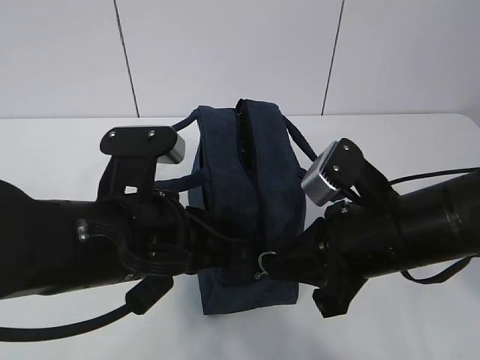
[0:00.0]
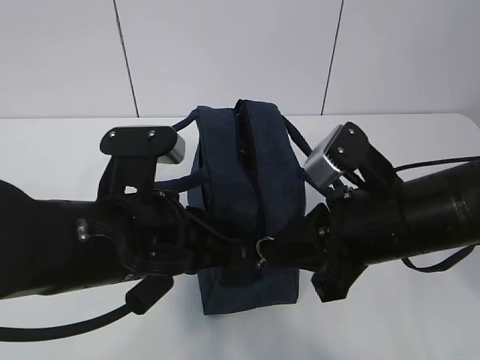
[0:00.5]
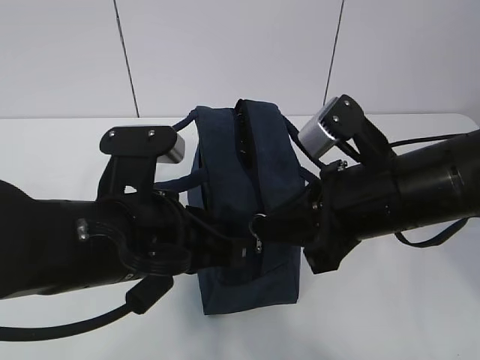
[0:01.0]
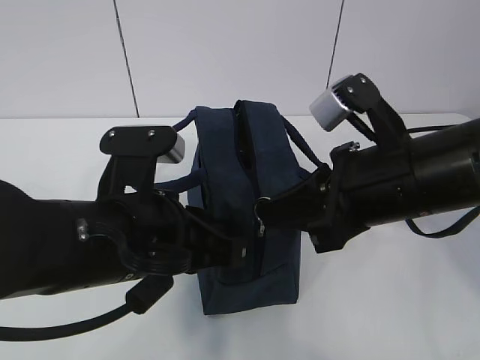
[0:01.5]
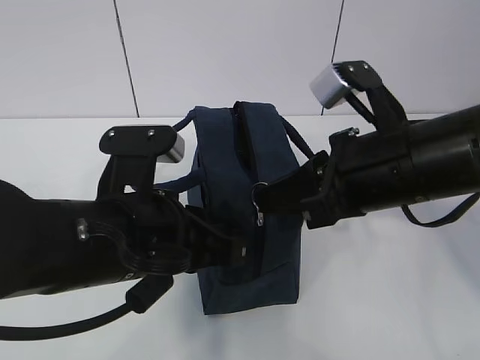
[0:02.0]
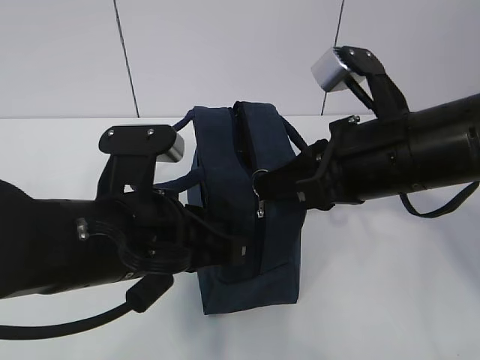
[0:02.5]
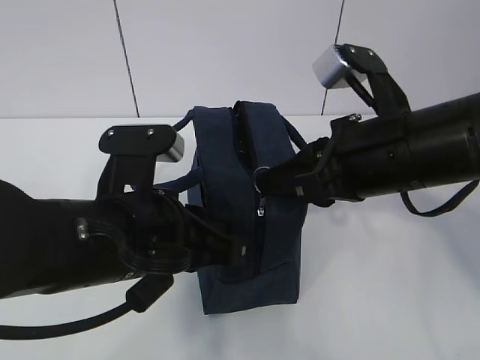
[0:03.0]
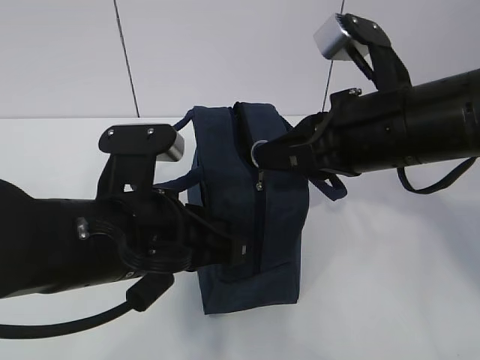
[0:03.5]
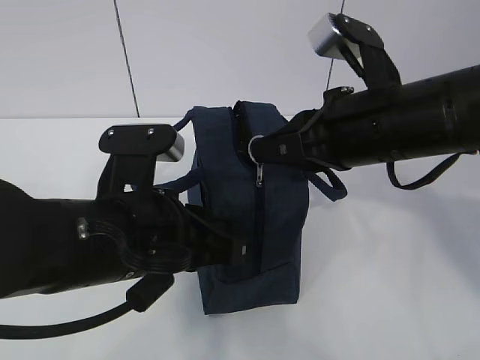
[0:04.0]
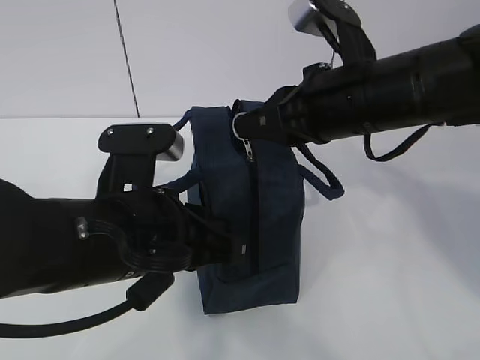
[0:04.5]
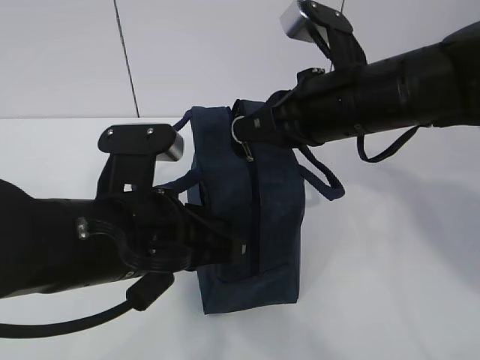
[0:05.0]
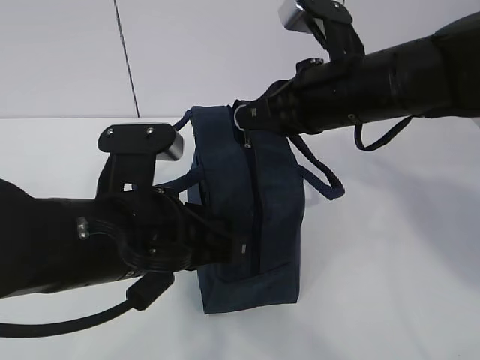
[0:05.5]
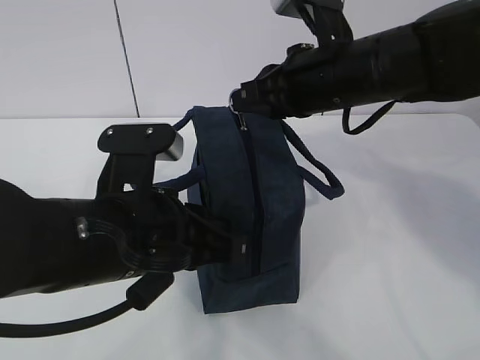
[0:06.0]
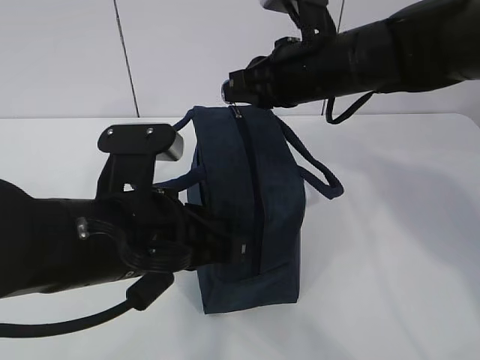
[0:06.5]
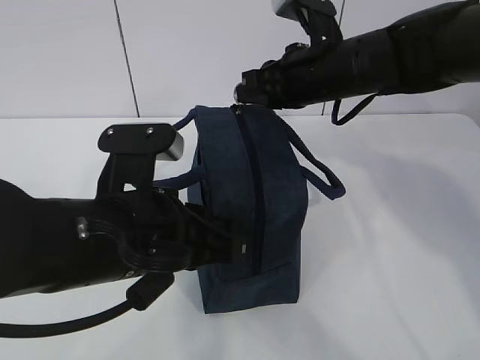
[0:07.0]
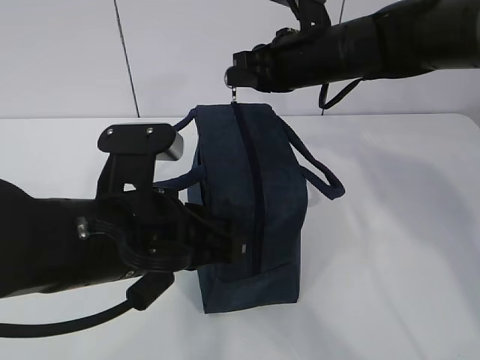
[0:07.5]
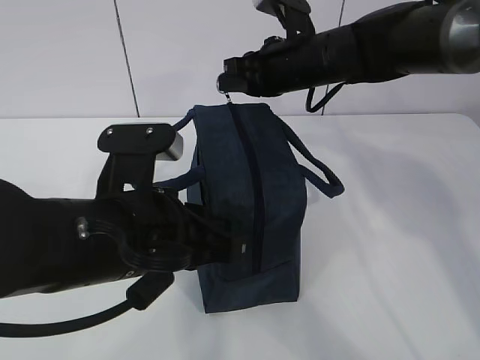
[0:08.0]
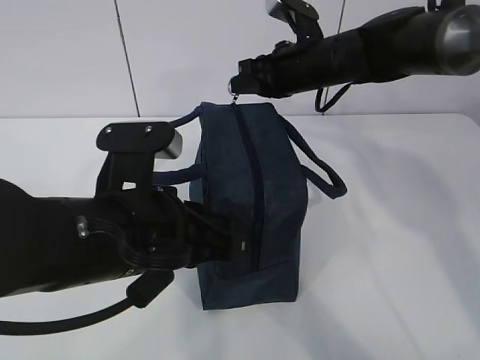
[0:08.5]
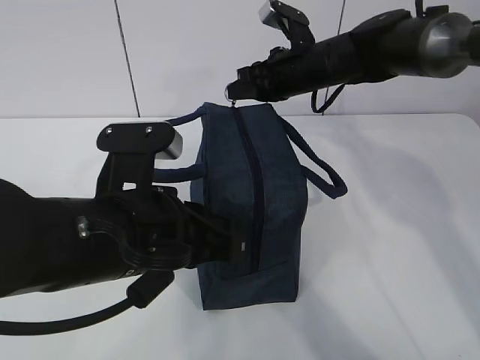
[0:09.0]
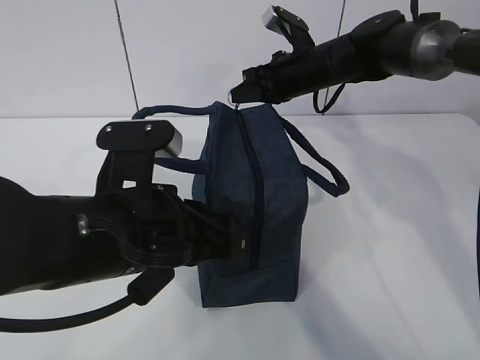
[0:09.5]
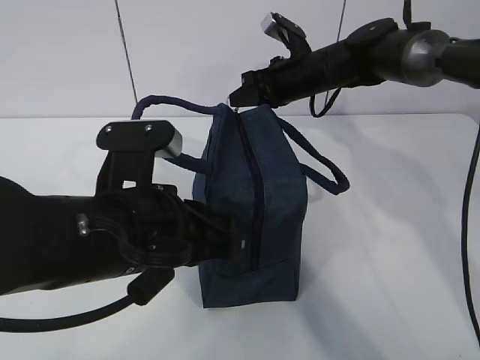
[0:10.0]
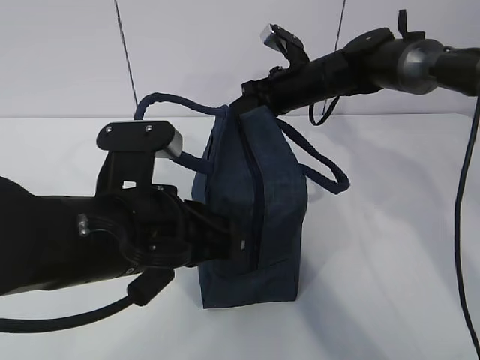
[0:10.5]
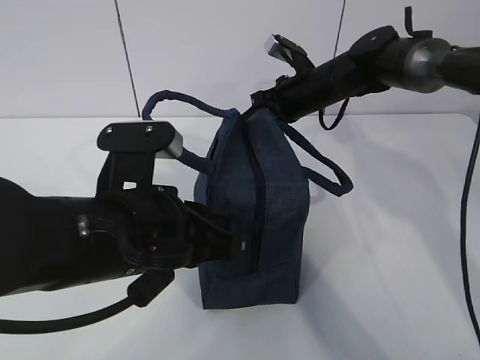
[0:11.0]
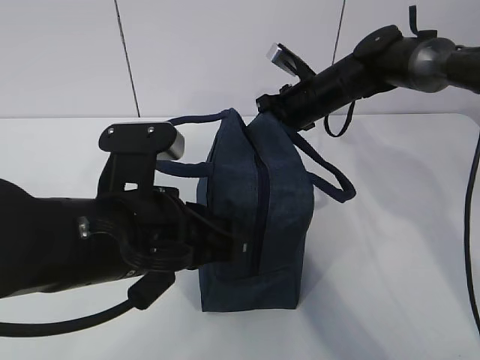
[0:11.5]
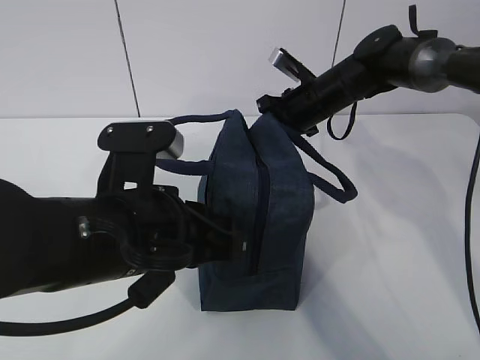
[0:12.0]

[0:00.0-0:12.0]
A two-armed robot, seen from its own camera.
0:00.0 to 0:02.0: The right gripper shifts roughly 5 cm upward.
0:02.0 to 0:04.0: The grippers move only a little.
0:04.0 to 0:06.0: The right gripper goes some 5 cm forward.
0:06.0 to 0:08.0: The right gripper shifts approximately 10 cm forward.
0:08.0 to 0:10.0: The right gripper moves forward and downward, some 10 cm.

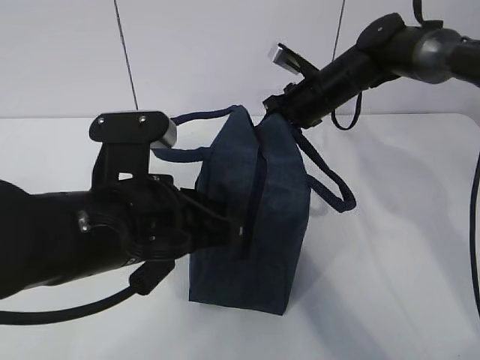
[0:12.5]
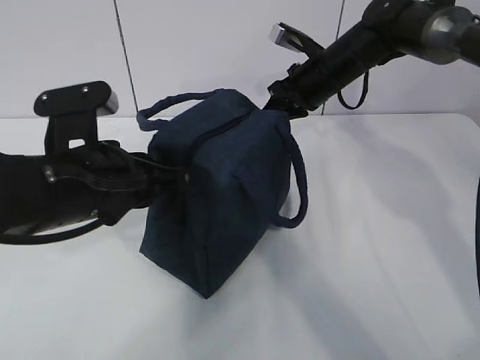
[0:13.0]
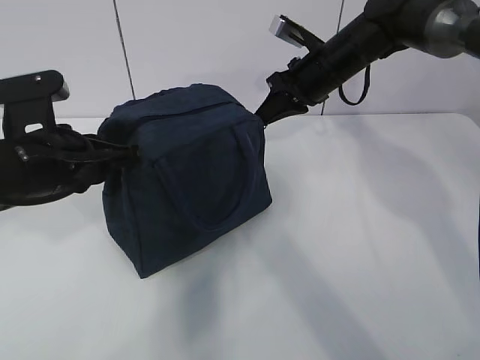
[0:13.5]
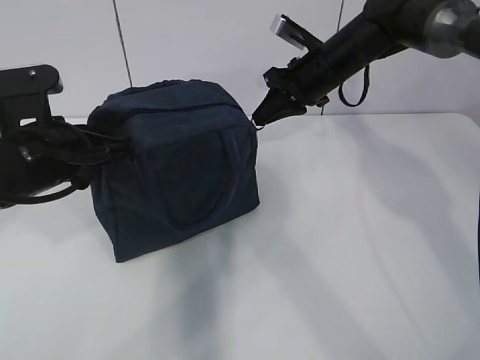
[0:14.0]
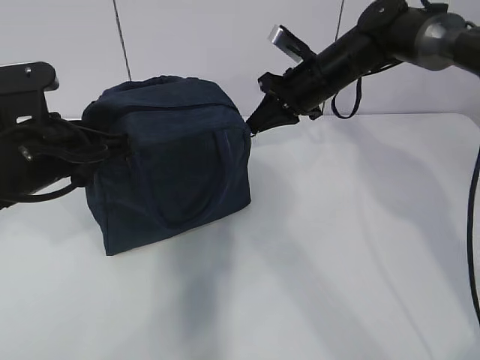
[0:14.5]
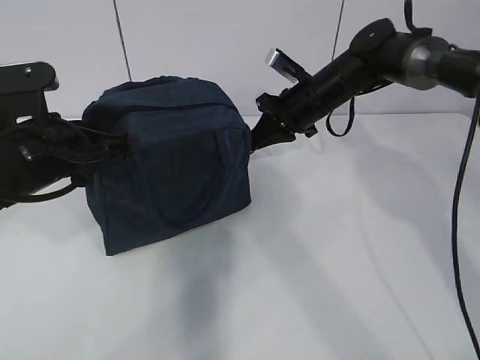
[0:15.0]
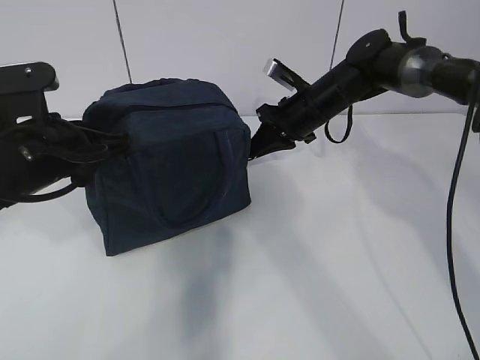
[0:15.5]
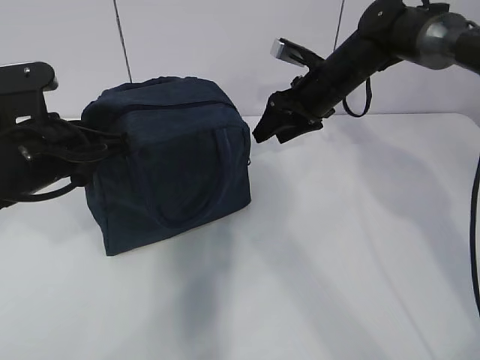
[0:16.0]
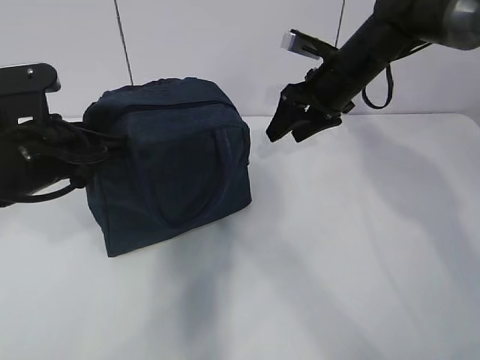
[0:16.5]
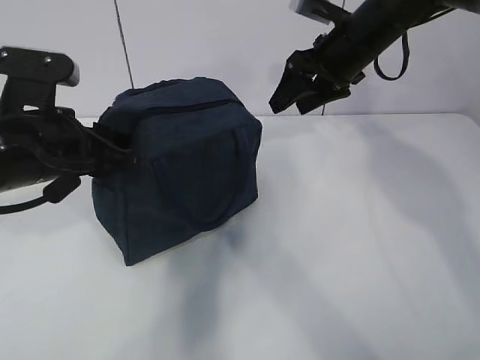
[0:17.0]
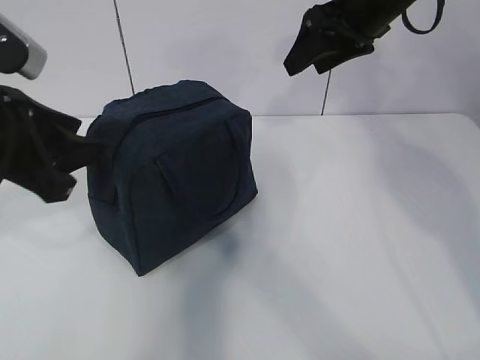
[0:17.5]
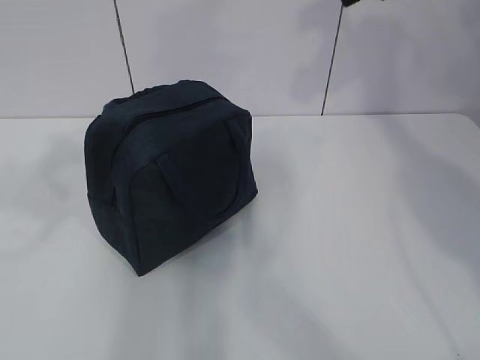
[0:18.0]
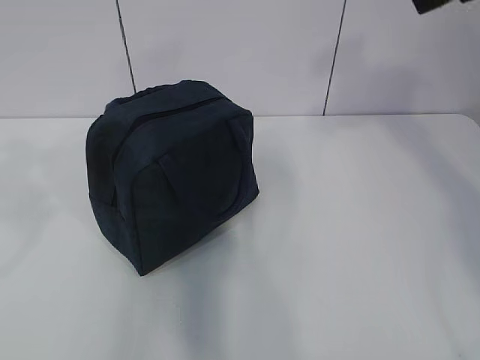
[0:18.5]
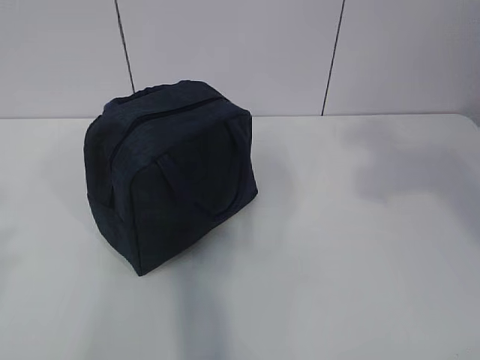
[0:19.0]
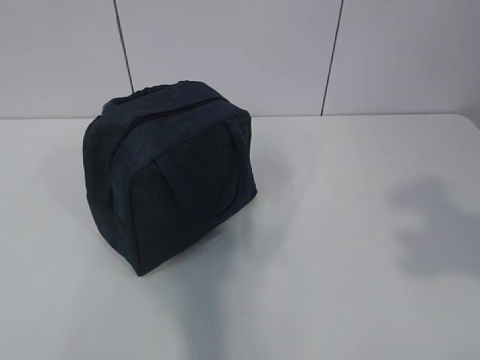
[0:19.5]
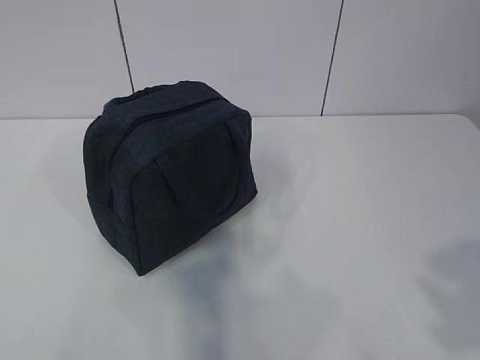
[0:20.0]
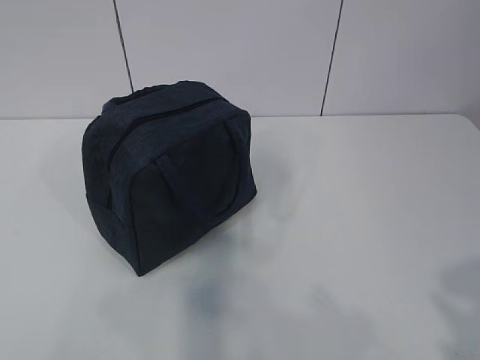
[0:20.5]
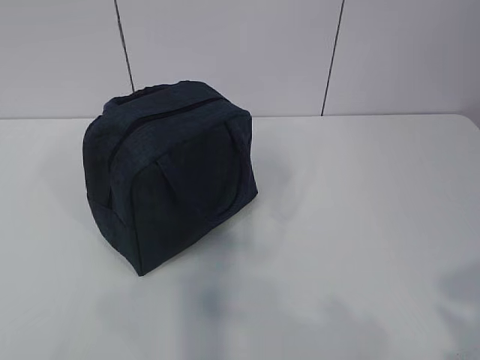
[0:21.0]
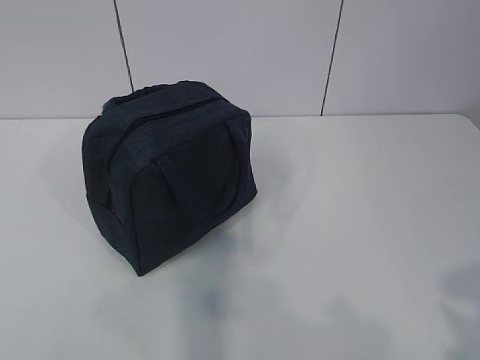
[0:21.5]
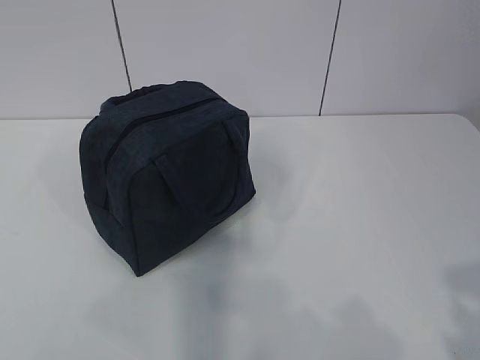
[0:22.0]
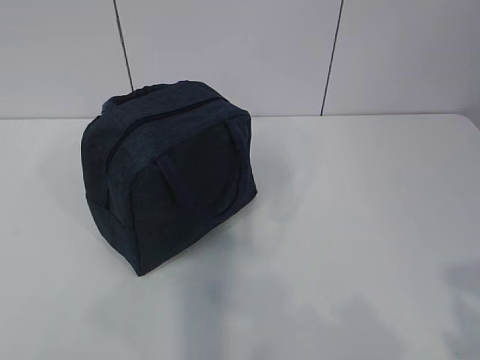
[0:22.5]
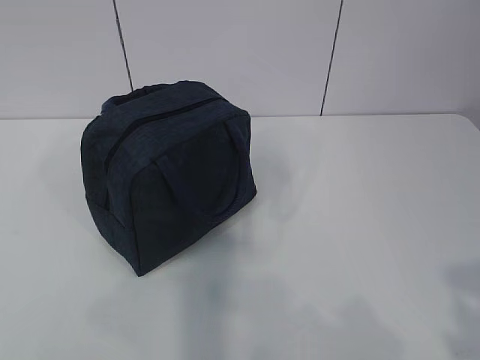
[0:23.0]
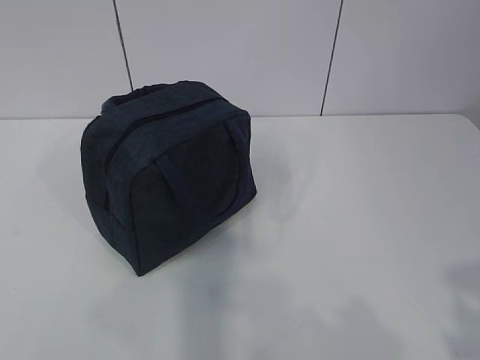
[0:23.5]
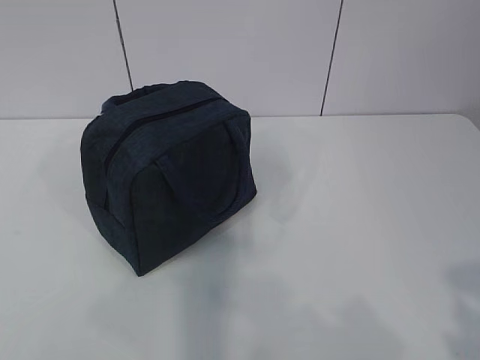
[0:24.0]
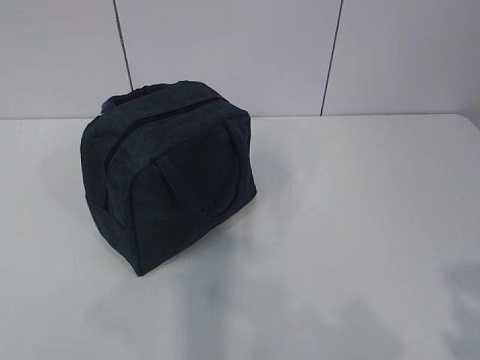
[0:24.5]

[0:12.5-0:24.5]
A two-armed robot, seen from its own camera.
0:12.5 to 0:14.5: The left gripper moves to the left and forward, roughly 15 cm.
0:14.5 to 0:16.5: The right gripper opens its fingers.
0:16.5 to 0:18.5: The left gripper travels upward, backward and to the left by about 25 cm, and opens up. Meanwhile the right gripper goes some 30 cm upward and backward.
0:18.5 to 0:20.5: The right gripper heads backward and downward, covering approximately 30 cm. Meanwhile the left gripper goes about 15 cm backward and downward.
0:22.5 to 0:24.5: Neither gripper changes place.

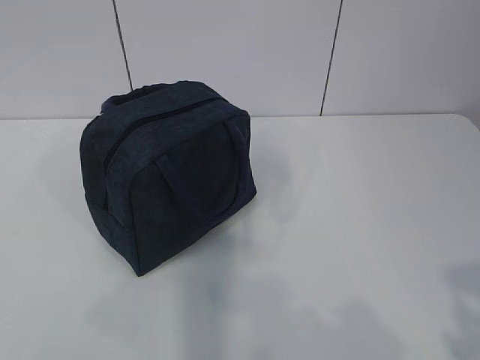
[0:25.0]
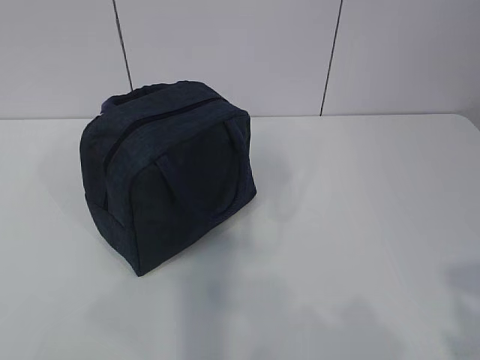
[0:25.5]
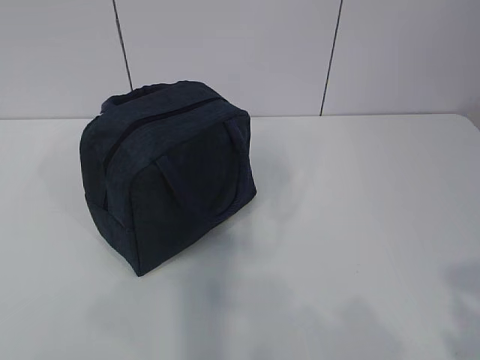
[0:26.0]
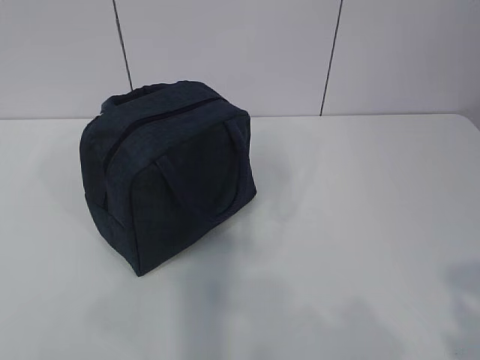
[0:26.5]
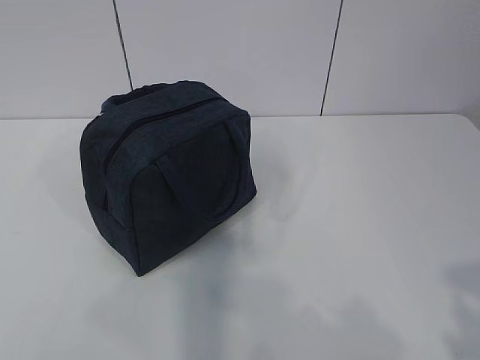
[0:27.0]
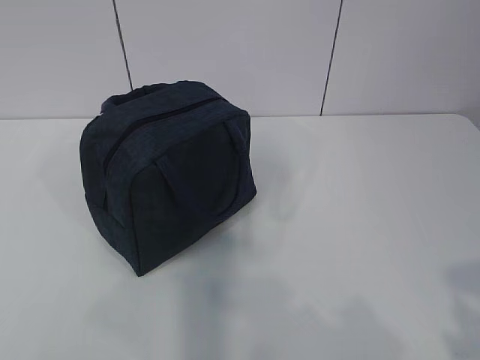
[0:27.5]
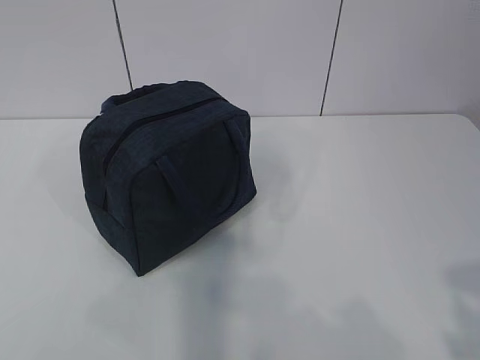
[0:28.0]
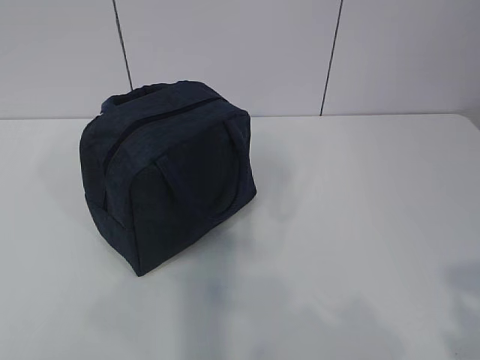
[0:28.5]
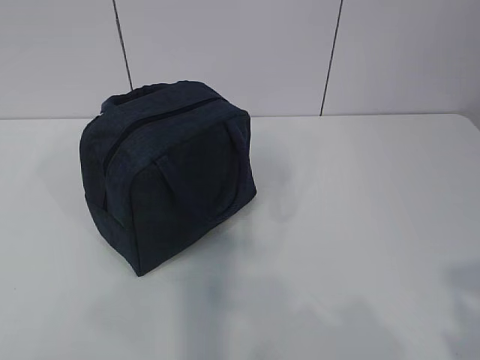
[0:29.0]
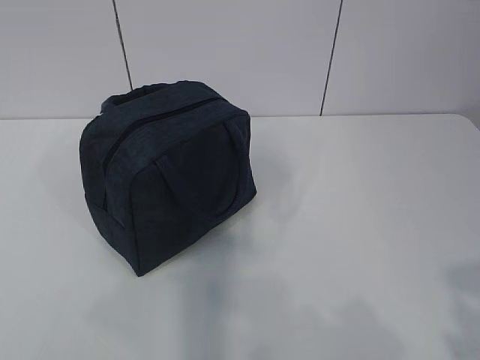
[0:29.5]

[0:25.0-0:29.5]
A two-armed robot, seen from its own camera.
0:25.0 to 0:29.5: Neither gripper changes place.
